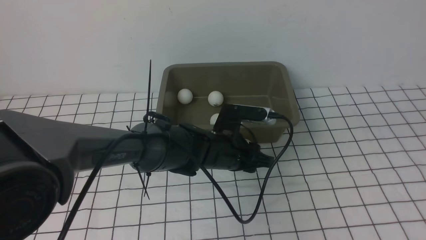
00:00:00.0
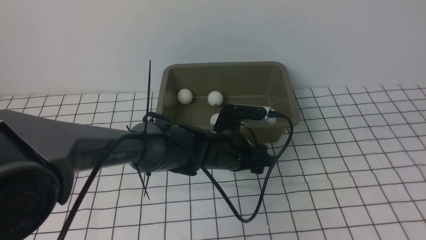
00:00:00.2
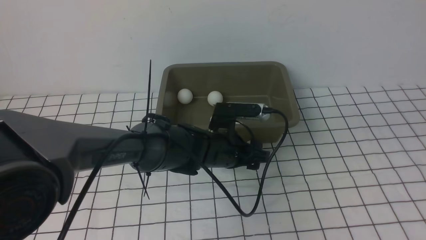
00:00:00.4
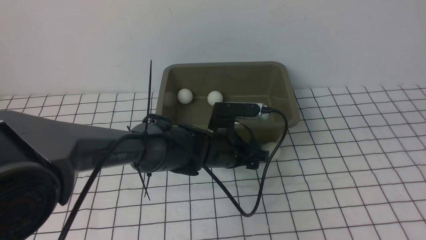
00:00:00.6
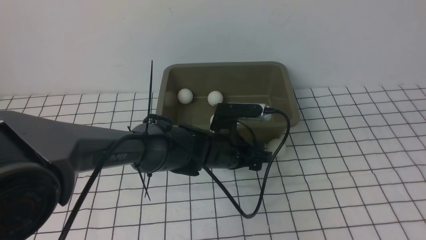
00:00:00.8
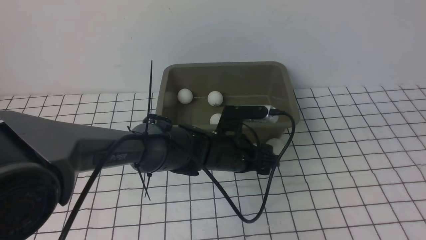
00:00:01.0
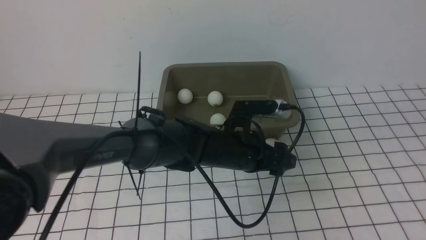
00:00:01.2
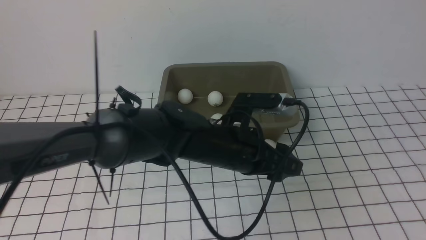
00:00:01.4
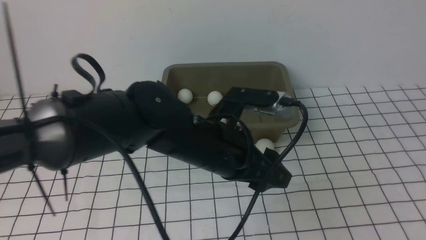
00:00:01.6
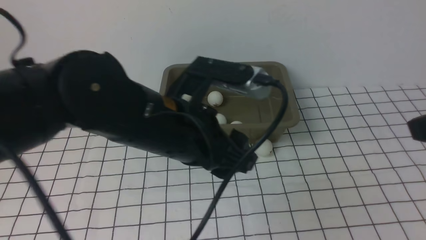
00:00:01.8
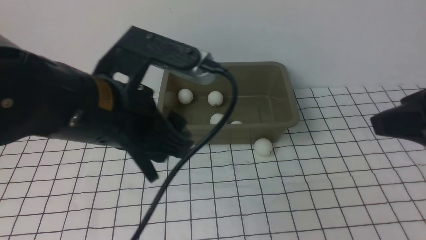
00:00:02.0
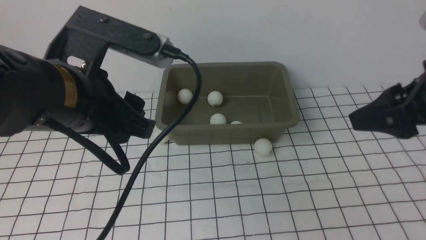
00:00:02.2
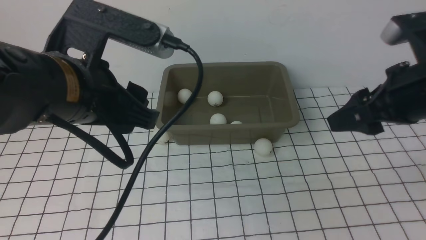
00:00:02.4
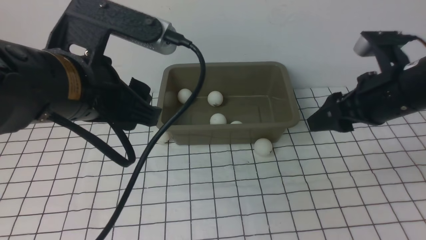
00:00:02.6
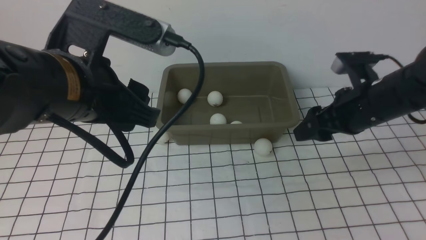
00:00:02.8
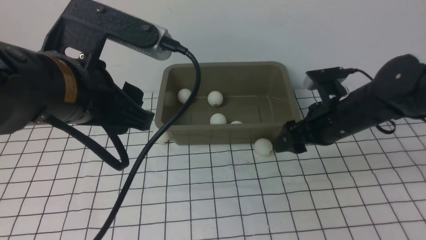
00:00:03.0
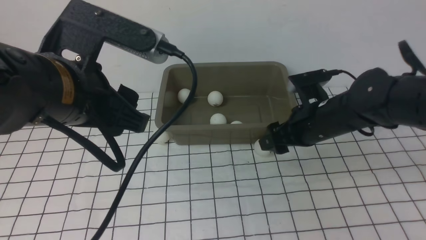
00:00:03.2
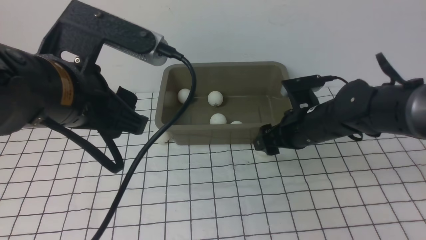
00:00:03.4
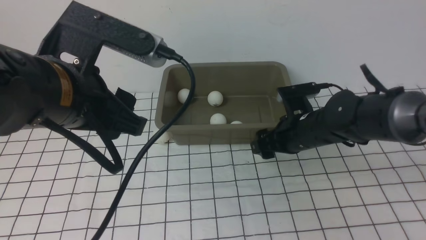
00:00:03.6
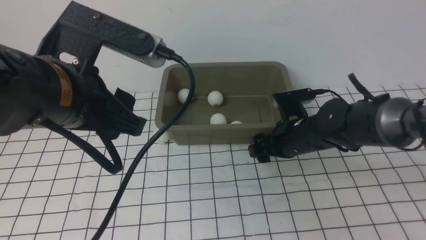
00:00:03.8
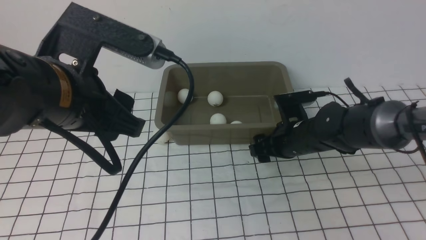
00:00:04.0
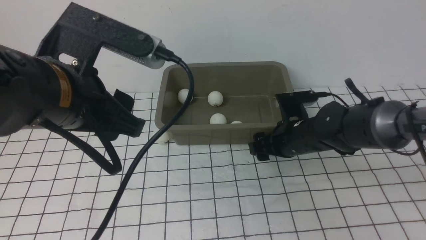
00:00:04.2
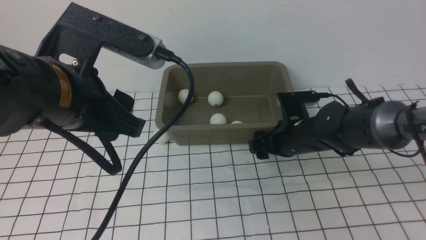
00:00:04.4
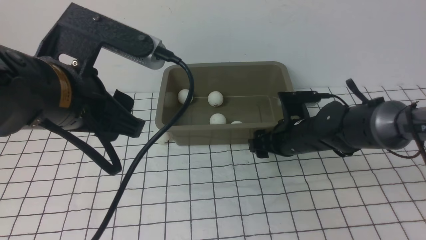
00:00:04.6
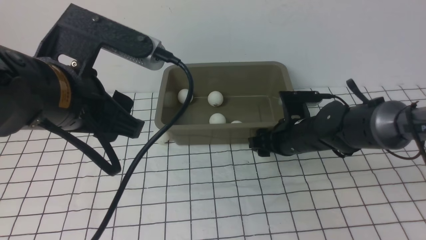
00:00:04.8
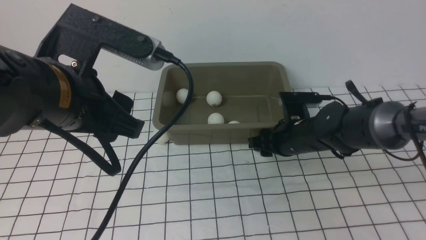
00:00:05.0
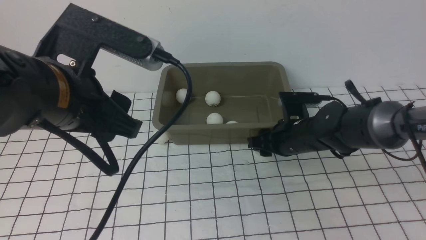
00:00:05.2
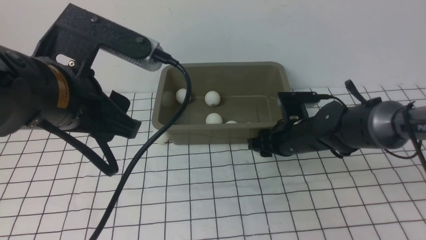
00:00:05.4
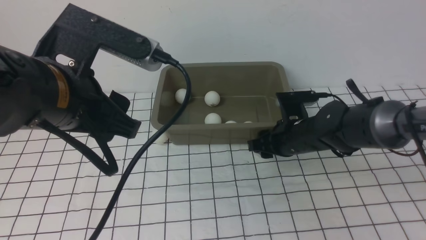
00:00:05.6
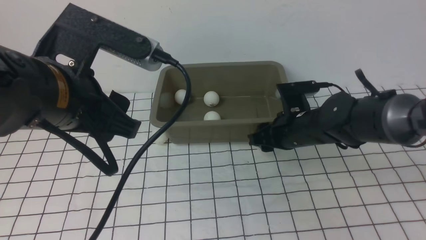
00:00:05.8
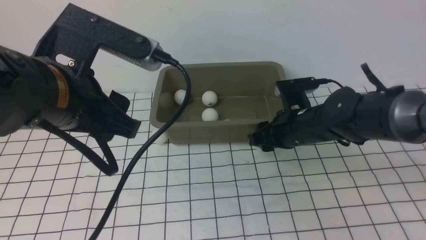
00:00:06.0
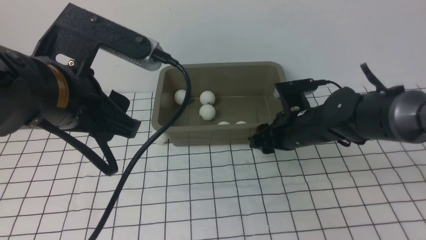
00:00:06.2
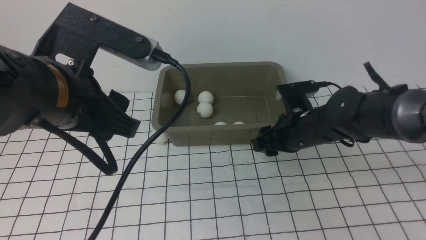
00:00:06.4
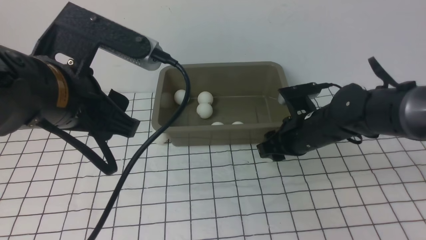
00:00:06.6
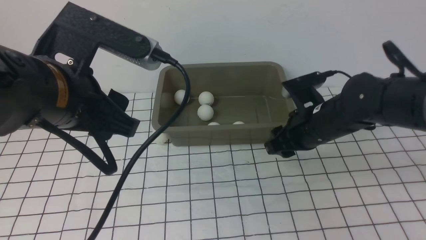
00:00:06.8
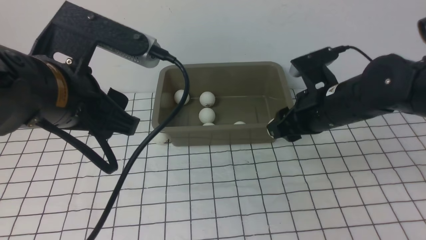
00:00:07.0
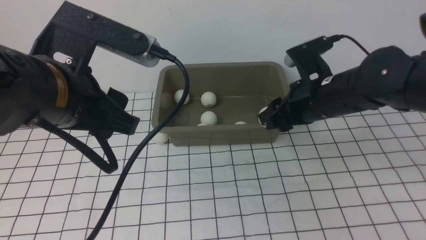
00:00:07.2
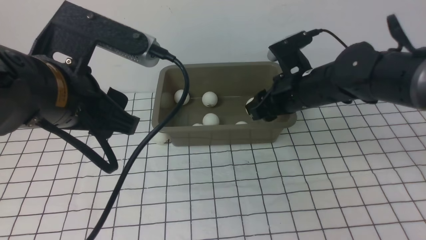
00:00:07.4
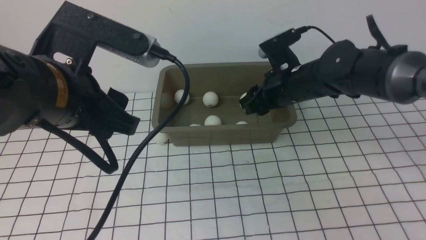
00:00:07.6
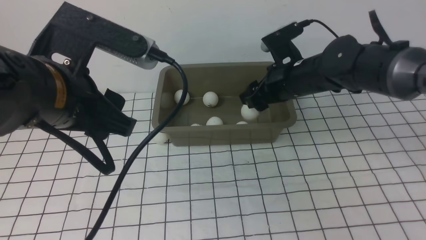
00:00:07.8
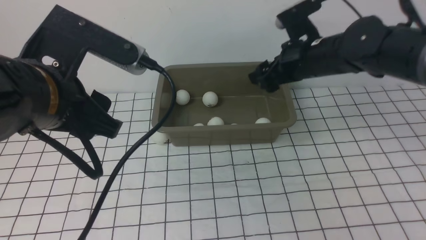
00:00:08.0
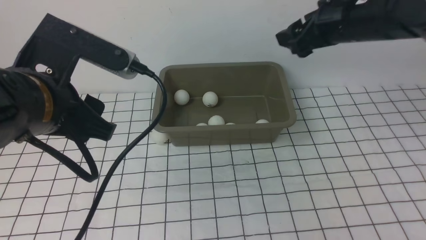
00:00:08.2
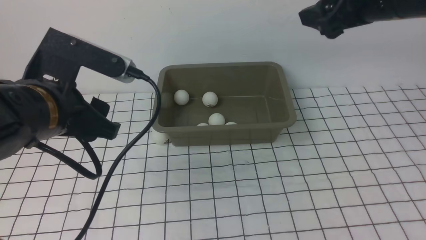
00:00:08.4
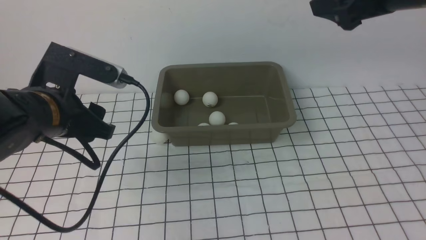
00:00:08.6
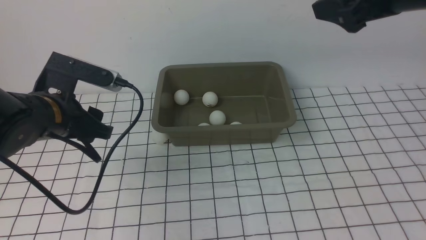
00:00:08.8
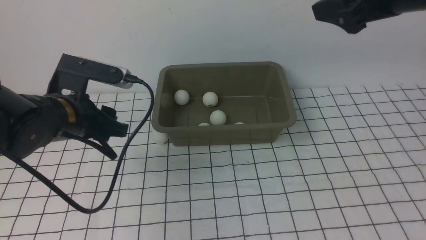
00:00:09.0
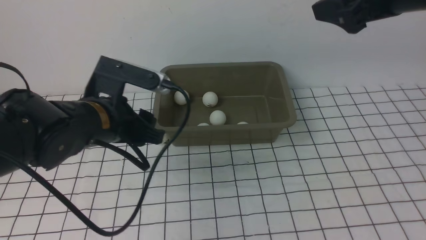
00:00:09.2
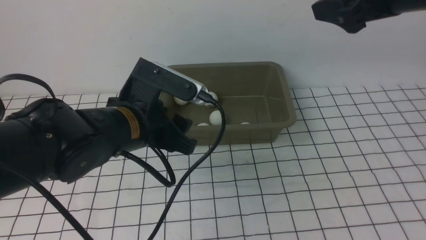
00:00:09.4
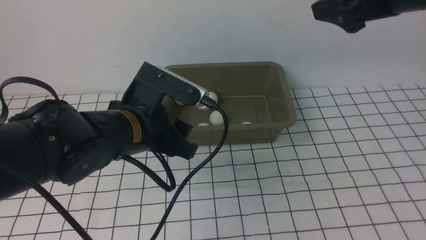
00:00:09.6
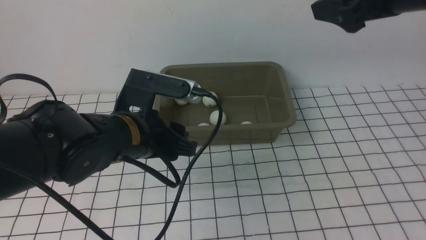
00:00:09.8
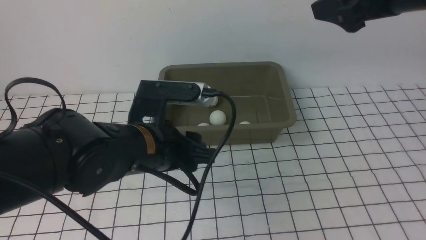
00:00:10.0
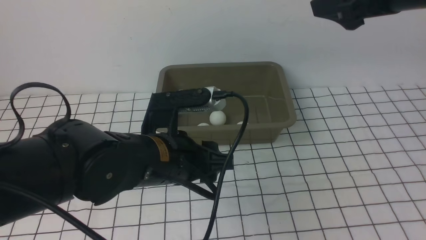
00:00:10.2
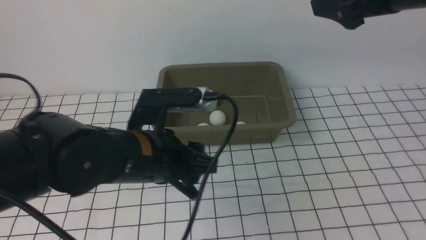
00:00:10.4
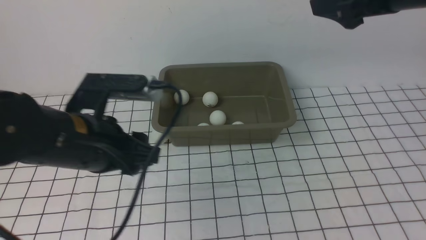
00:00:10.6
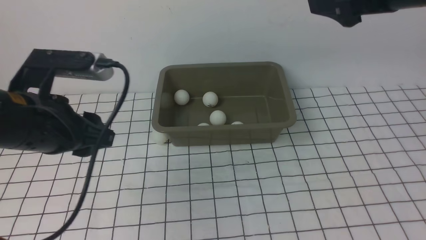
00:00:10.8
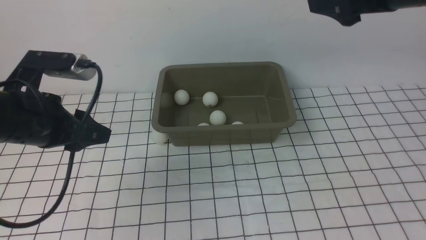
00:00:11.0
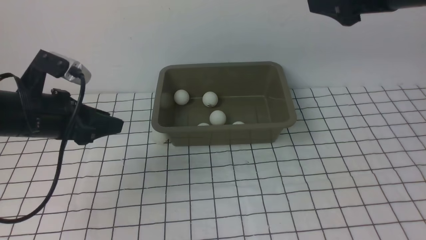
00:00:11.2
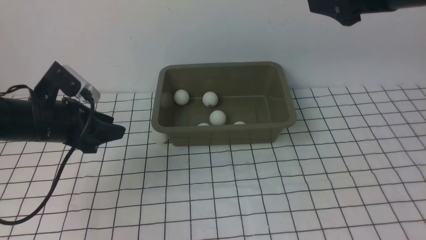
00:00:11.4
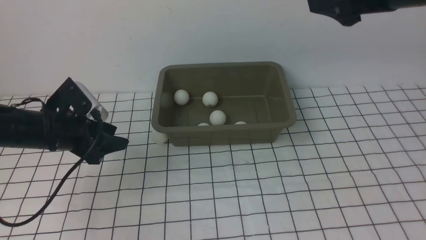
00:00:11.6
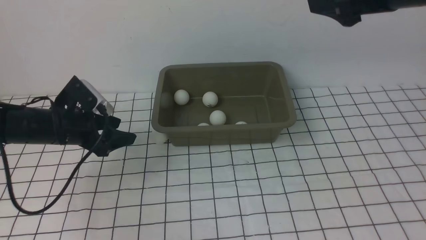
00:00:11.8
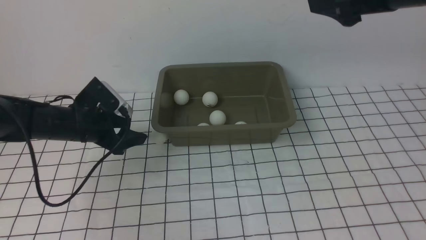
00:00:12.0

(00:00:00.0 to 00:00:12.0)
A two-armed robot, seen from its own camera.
Step, 00:00:00.0 - 00:00:05.8: use the right arm to clamp the table tennis ball closest to it.
Step, 00:00:06.0 - 00:00:08.0: use the right arm to put the table tennis ball into the box.
00:00:00.0 - 00:00:01.6: The left gripper shifts approximately 15 cm upward and backward, and opens.
00:00:01.6 - 00:00:03.0: The left gripper travels to the left and upward by approximately 15 cm. The right gripper travels forward, downward and to the left by approximately 25 cm.
00:00:03.0 - 00:00:04.4: The right gripper travels downward and to the left by about 10 cm.
00:00:04.4 - 00:00:06.0: The right gripper closes.
00:00:06.0 - 00:00:07.6: The right gripper is displaced upward by roughly 5 cm, and opens.
00:00:07.6 - 00:00:09.0: The right gripper is displaced upward, backward and to the right by some 20 cm, and opens. Meanwhile the left gripper is displaced downward and forward by roughly 15 cm.
00:00:09.0 - 00:00:10.4: The left gripper shifts approximately 10 cm to the right and backward.
00:00:10.4 - 00:00:12.0: The left gripper heads to the left, forward and downward, covering approximately 25 cm.

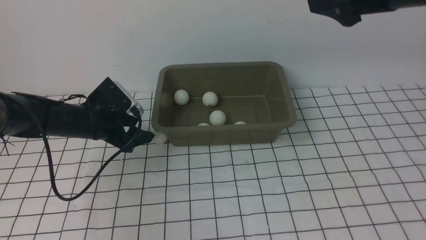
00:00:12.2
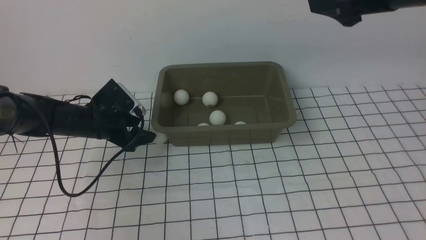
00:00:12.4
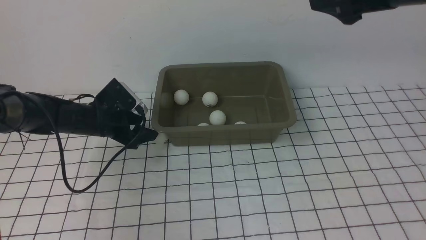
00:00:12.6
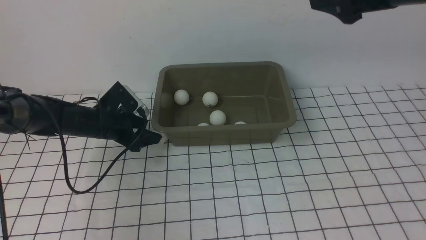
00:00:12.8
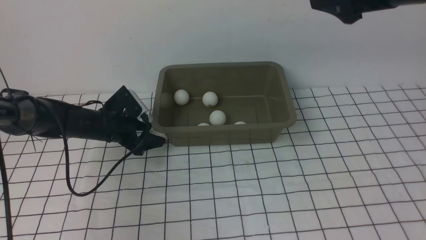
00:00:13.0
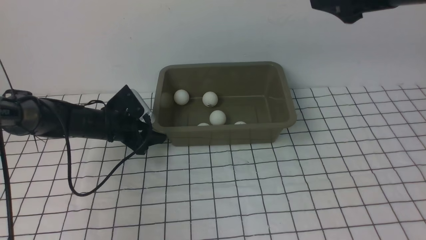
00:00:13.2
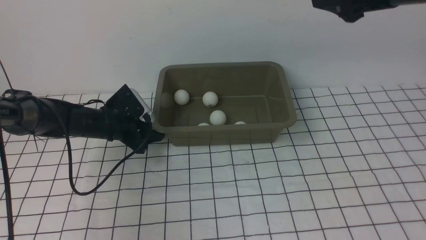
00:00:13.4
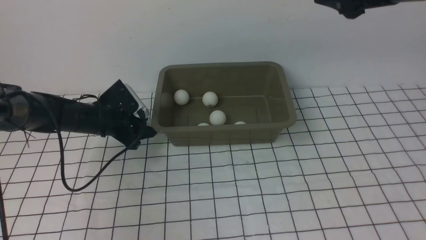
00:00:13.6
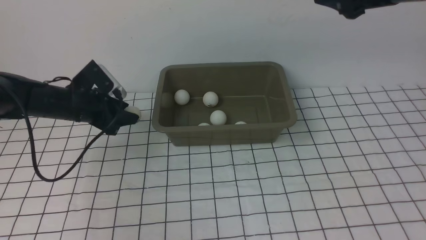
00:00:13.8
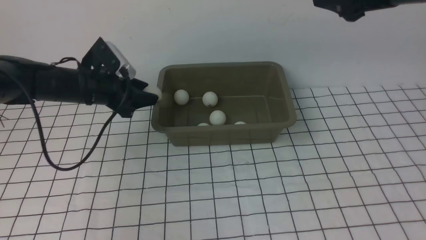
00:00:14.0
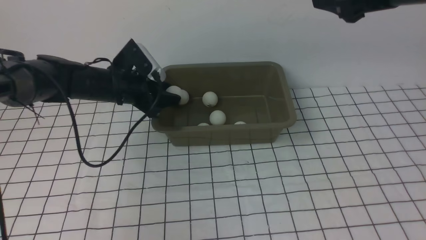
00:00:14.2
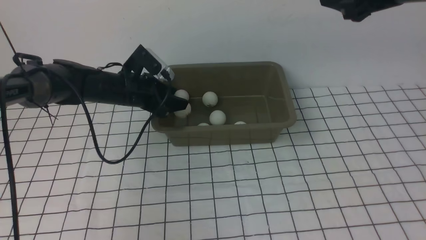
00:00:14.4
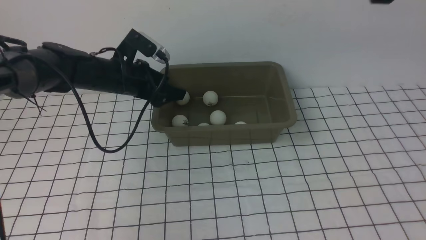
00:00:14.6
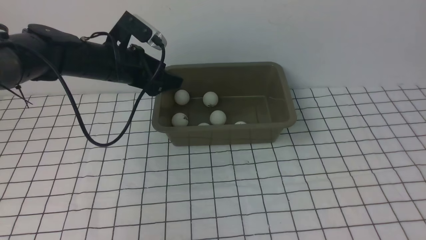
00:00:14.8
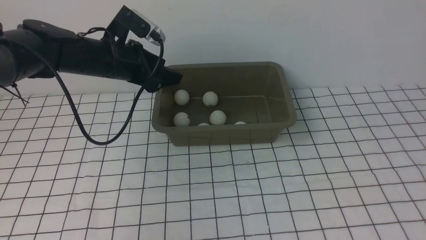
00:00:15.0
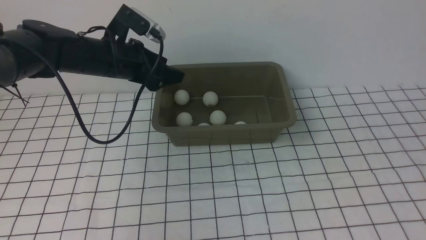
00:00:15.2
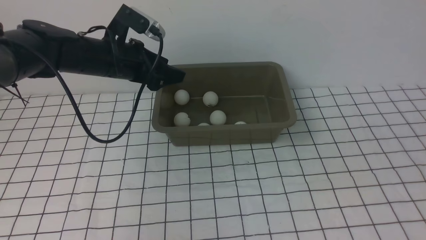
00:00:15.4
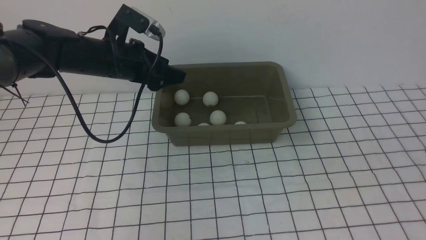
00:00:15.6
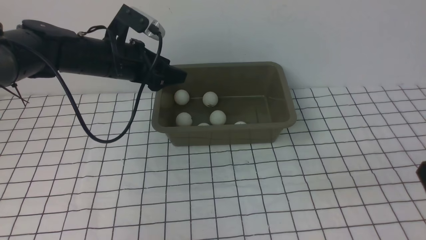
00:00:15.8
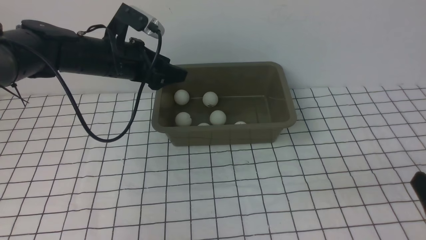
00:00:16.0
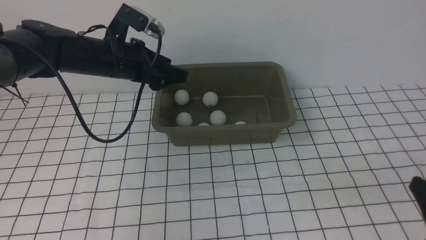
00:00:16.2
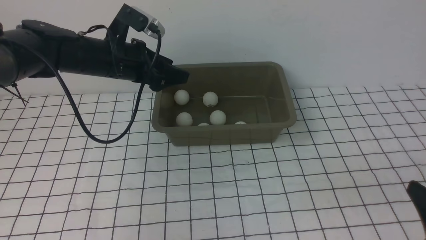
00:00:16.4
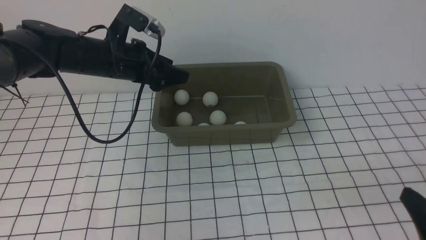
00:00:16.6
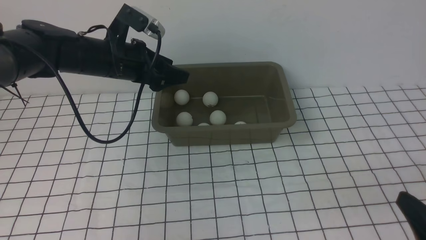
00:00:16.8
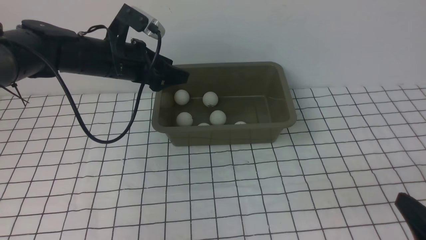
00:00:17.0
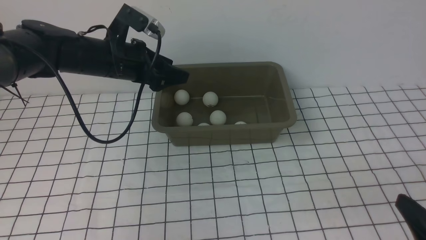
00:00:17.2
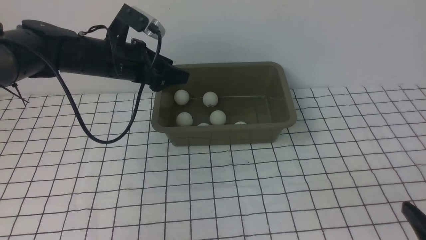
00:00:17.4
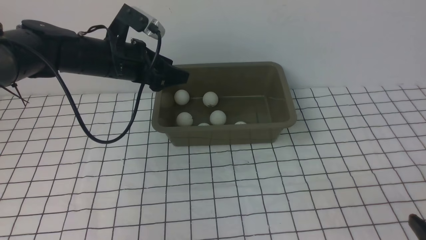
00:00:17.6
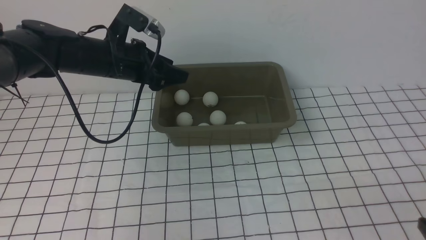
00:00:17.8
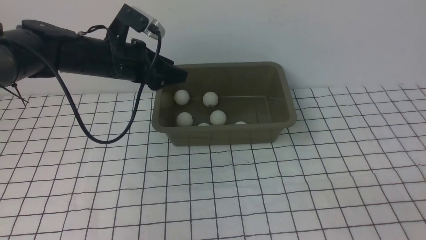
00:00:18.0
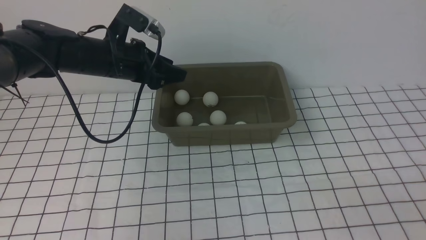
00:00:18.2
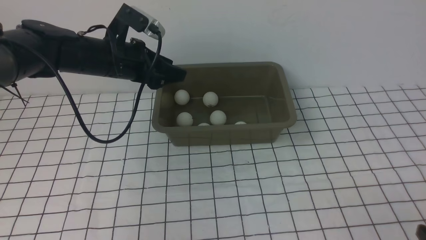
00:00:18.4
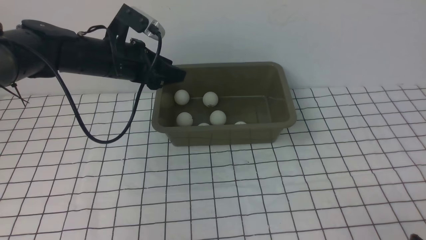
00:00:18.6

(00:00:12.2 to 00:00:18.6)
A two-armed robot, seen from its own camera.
Step, 00:00:13.8 - 00:00:14.6: use the left arm to put the table tennis ball into the box.
00:00:12.2 - 00:00:13.8: The left gripper changes place by about 5 cm, and closes.
00:00:13.8 - 00:00:15.4: The left gripper shifts roughly 10 cm upward and to the right; the right gripper goes some 25 cm backward and downward.
00:00:15.4 - 00:00:17.0: There are only small adjustments of the grippers.
00:00:17.0 - 00:00:18.6: The grippers make only small movements.
